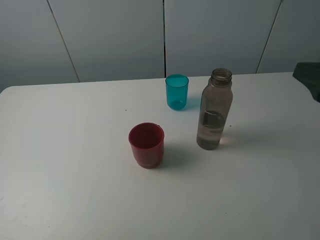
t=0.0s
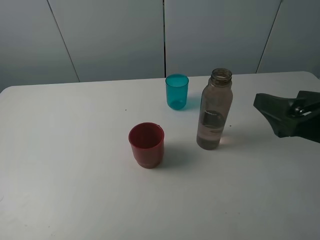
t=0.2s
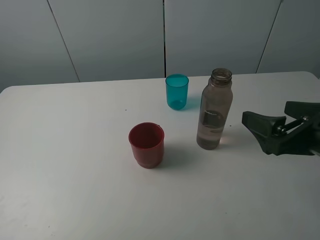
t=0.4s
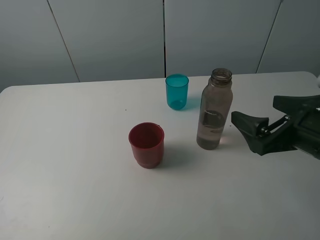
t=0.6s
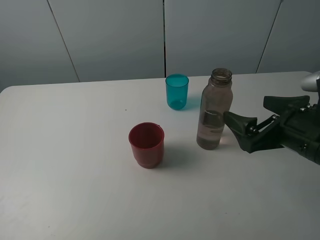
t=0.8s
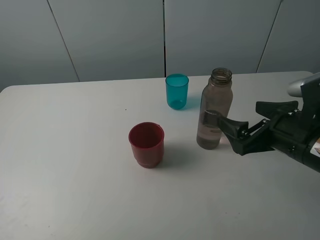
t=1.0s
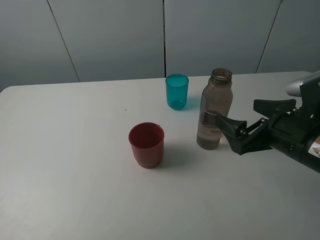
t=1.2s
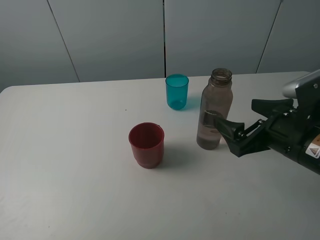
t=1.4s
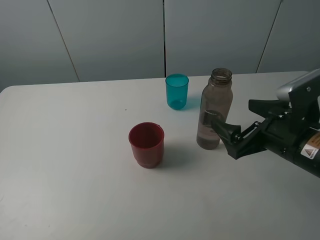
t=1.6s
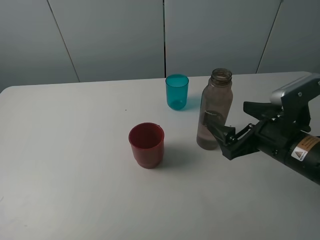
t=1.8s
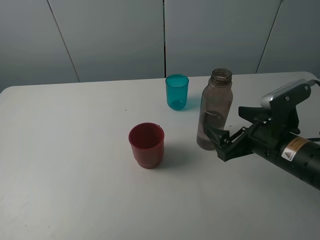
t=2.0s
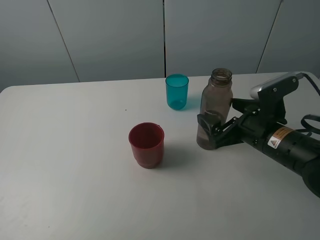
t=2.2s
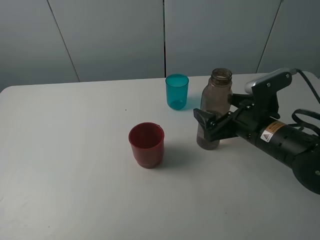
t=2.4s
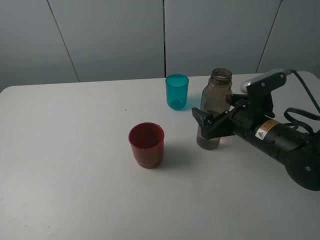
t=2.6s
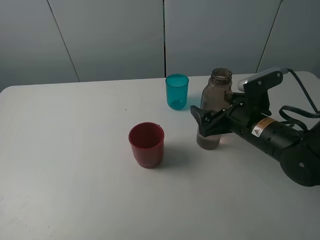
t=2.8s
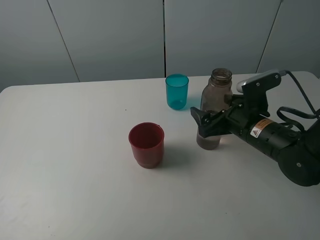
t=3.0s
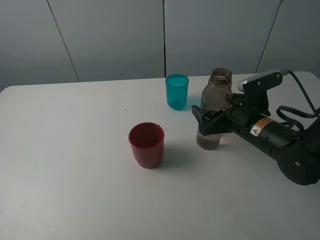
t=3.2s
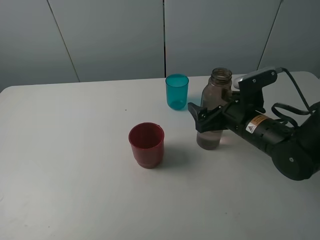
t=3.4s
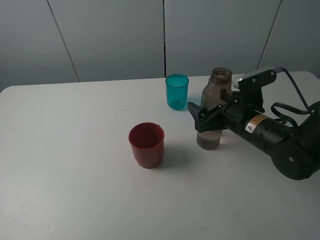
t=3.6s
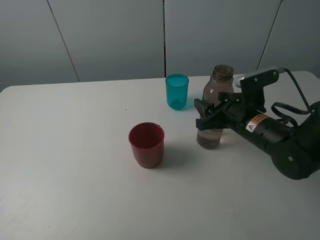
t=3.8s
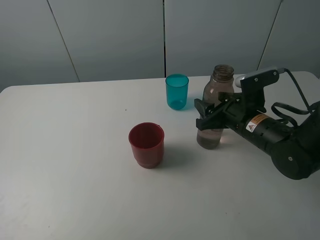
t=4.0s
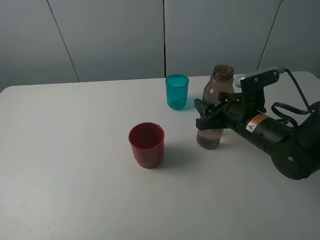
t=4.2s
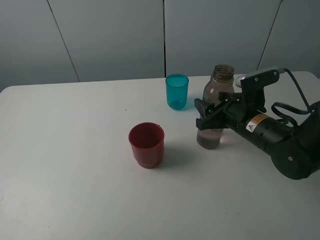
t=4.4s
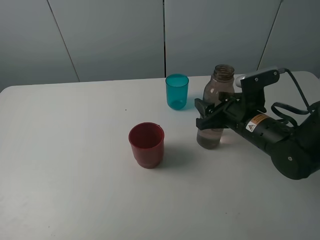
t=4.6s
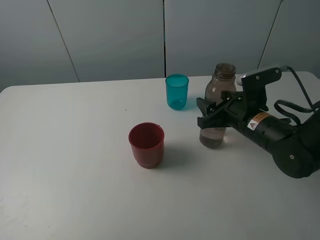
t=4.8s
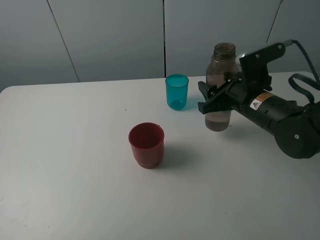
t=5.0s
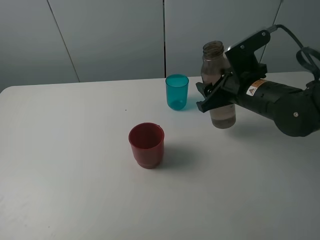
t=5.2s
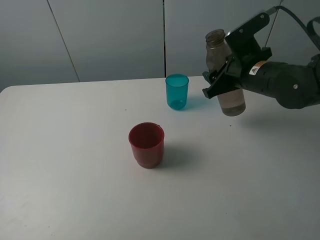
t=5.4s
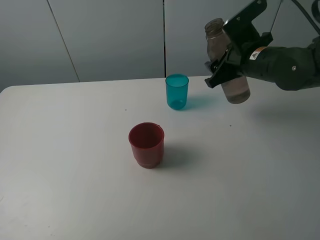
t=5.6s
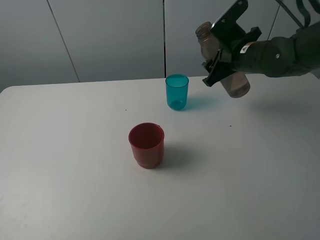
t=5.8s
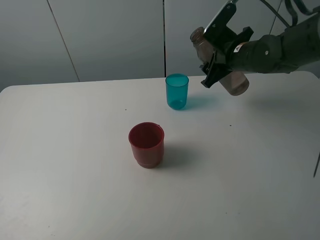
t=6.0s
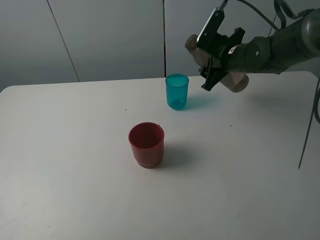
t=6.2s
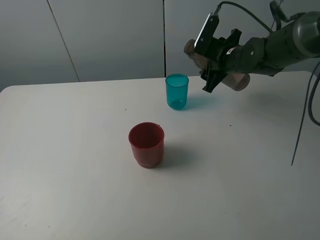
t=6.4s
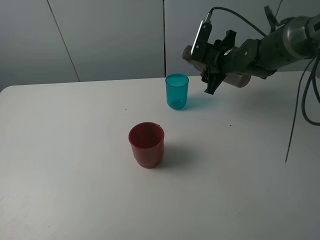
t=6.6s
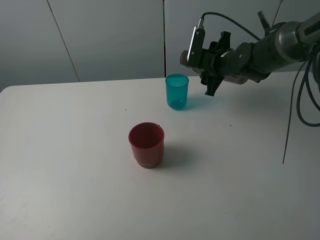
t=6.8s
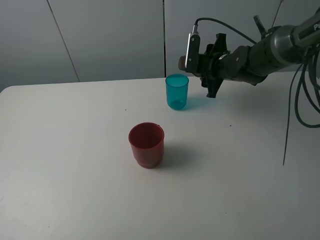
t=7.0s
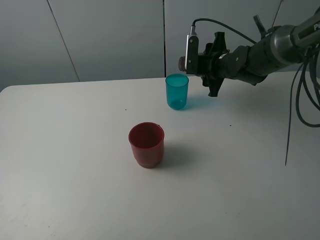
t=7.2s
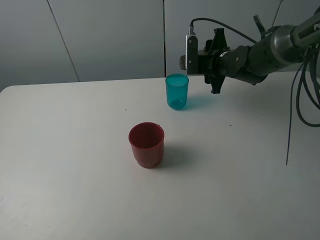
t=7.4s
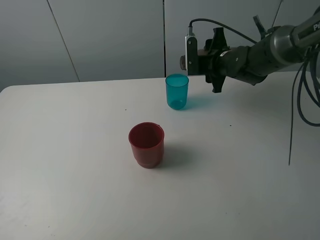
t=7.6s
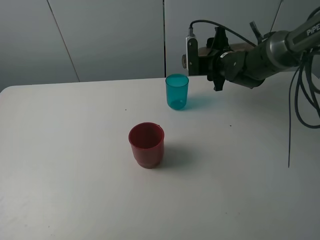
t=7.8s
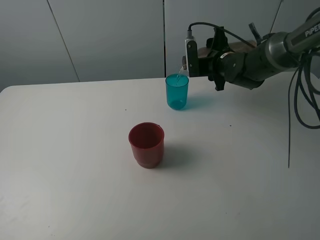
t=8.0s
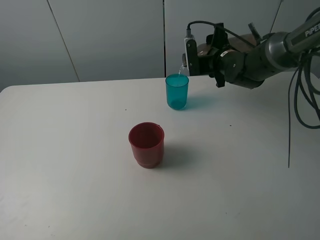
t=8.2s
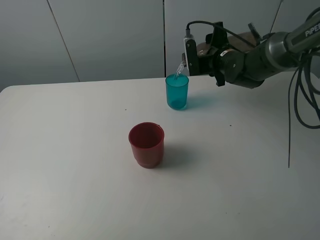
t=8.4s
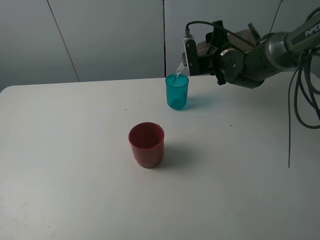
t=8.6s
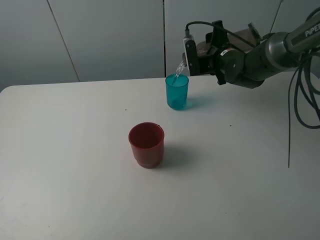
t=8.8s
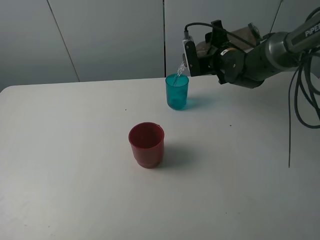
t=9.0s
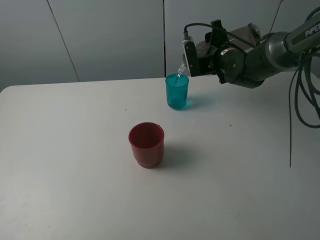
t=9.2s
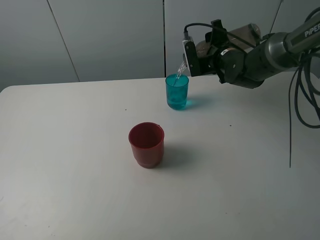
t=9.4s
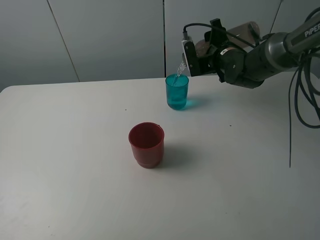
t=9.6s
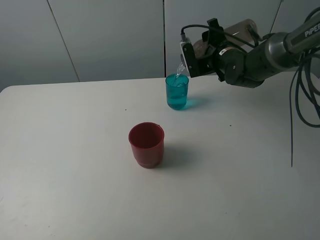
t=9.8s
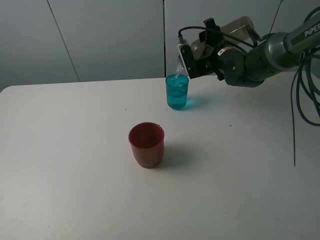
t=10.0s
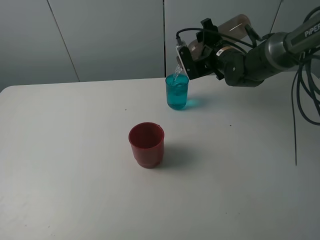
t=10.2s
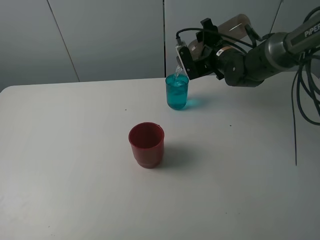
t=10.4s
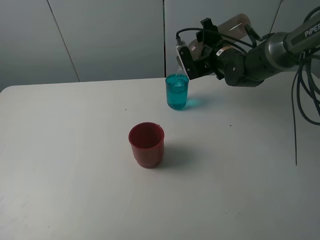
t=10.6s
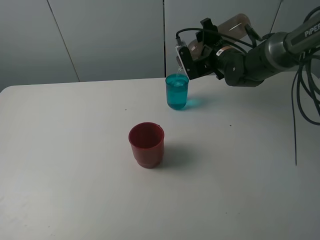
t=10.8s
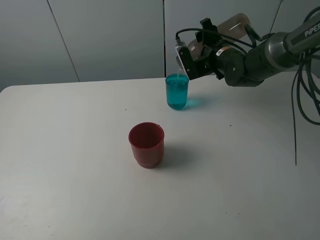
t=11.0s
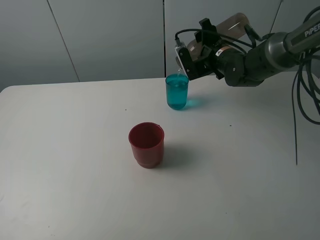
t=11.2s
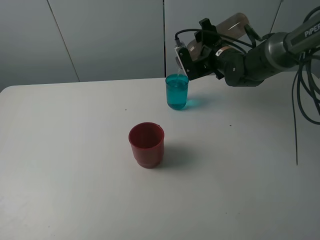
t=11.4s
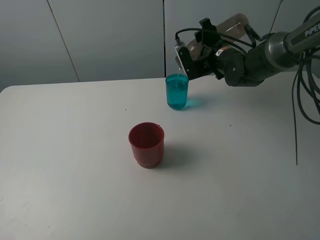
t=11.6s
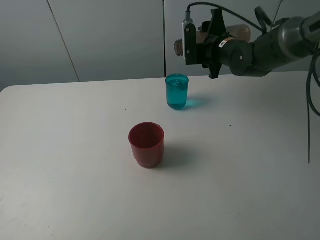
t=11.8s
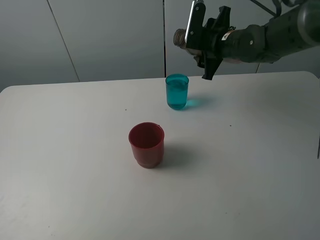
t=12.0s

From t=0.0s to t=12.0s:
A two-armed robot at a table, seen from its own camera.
Task of the whole recording: pick up the bottle and pour water into the cup, then pick up the cup containing water and pour it into another cup.
Step, from t=0.0s to t=3.8s: Grasp the brown bottle with the right gripper.
Step, from t=4.0s to t=11.8s: Pour water from brown bottle to blue cup with the right gripper.
From t=0.0s to t=1.6s: The right gripper goes approximately 10 cm downward and to the left, and opens up.
From t=1.6s to t=3.0s: The right gripper goes roughly 5 cm forward.
From t=3.0s to t=4.4s: The right gripper closes its fingers.
From t=4.4s to t=6.0s: The right gripper is displaced forward and upward by roughly 15 cm.
From t=6.0s to t=7.6s: The right gripper changes place by roughly 5 cm.
From t=7.6s to t=9.0s: There are only small adjustments of the grippers.
From t=9.0s to t=10.4s: The grippers stay close to where they were, moving slightly.
From t=10.4s to t=12.0s: The right gripper changes place by about 5 cm.

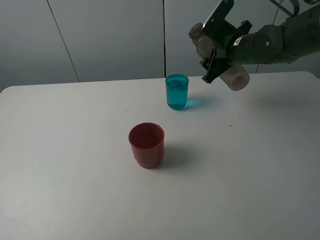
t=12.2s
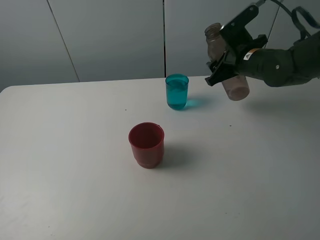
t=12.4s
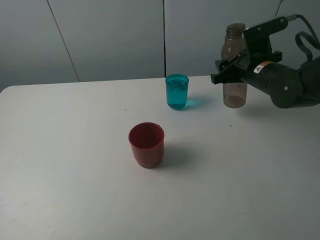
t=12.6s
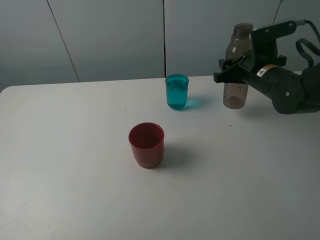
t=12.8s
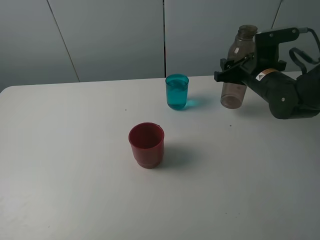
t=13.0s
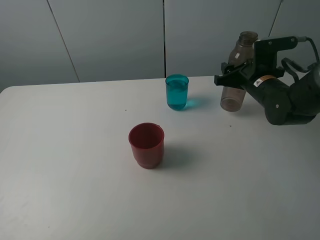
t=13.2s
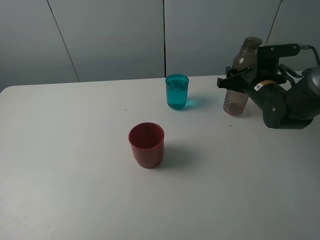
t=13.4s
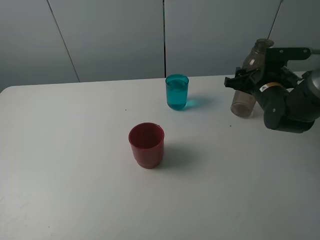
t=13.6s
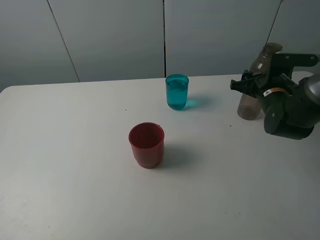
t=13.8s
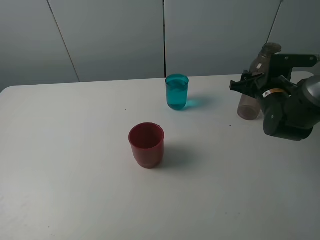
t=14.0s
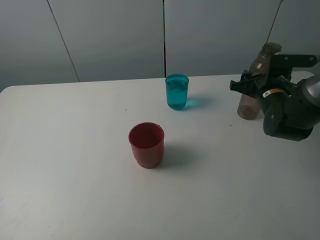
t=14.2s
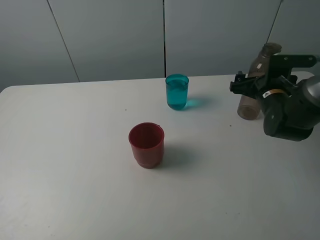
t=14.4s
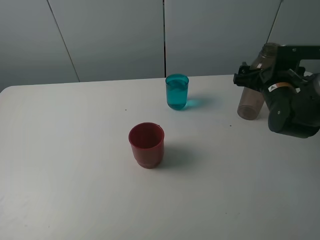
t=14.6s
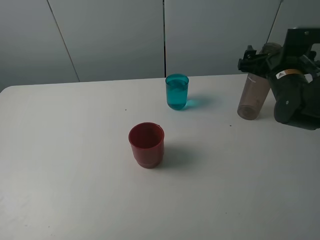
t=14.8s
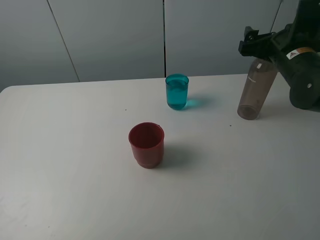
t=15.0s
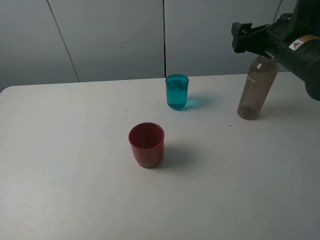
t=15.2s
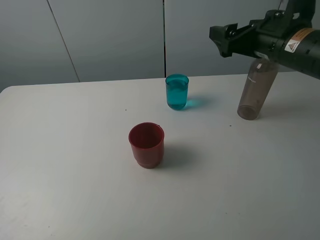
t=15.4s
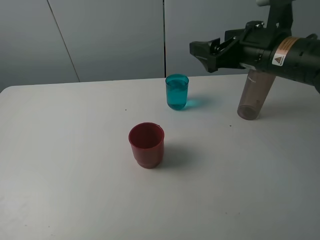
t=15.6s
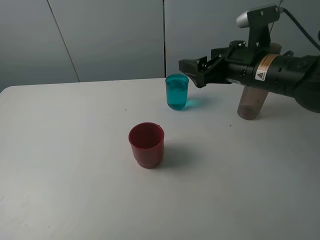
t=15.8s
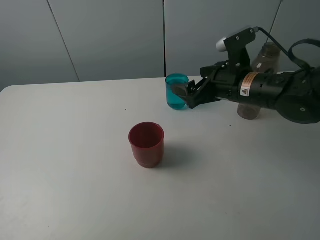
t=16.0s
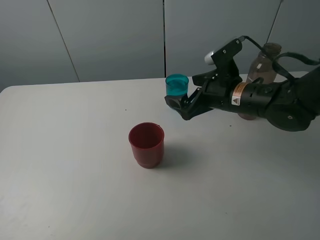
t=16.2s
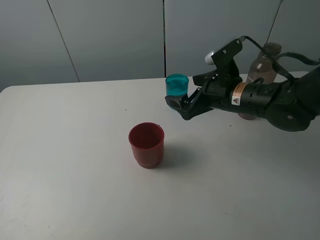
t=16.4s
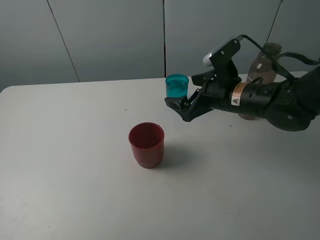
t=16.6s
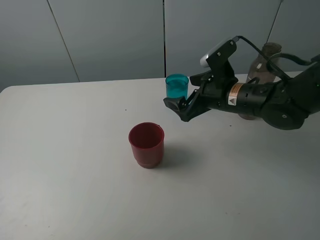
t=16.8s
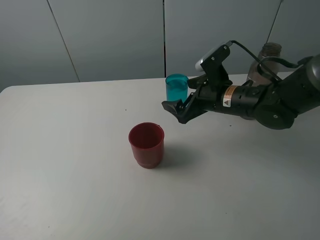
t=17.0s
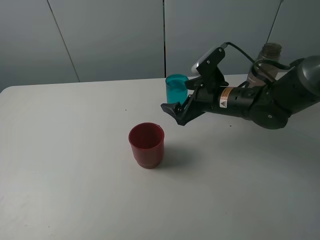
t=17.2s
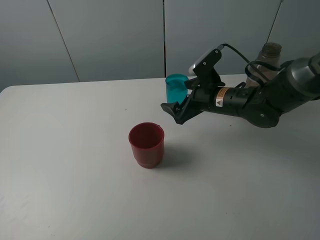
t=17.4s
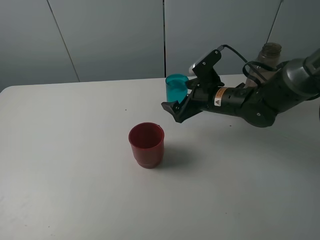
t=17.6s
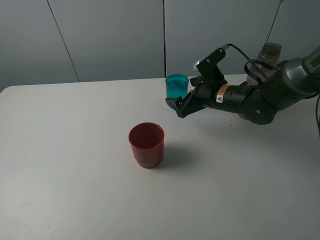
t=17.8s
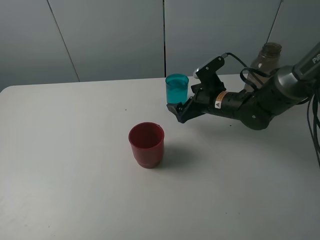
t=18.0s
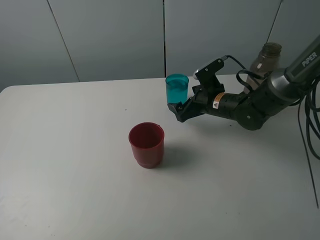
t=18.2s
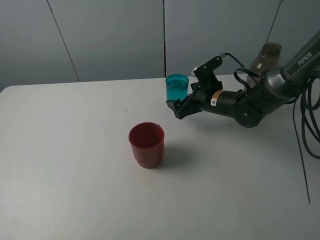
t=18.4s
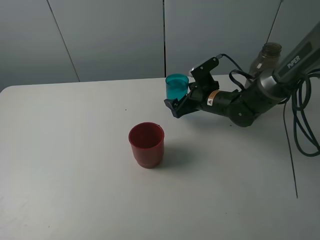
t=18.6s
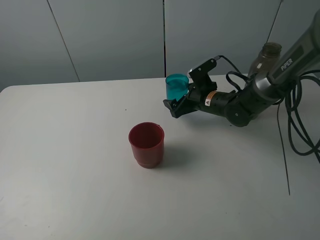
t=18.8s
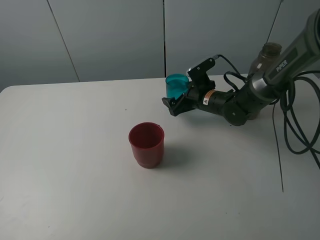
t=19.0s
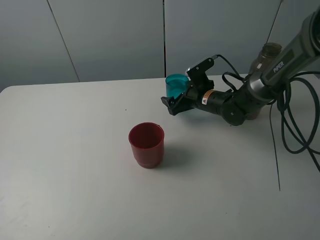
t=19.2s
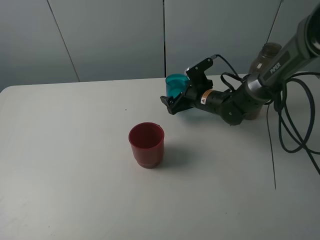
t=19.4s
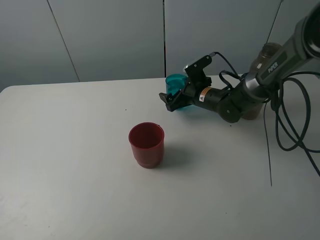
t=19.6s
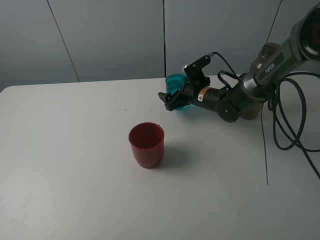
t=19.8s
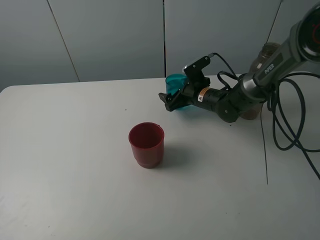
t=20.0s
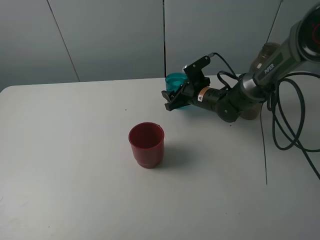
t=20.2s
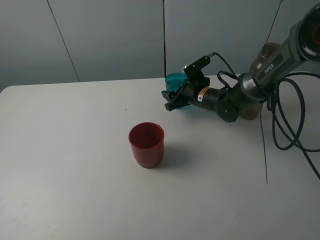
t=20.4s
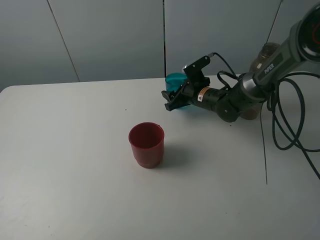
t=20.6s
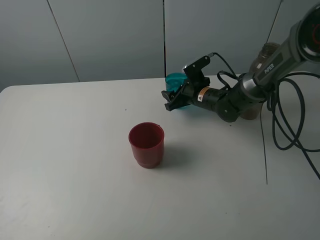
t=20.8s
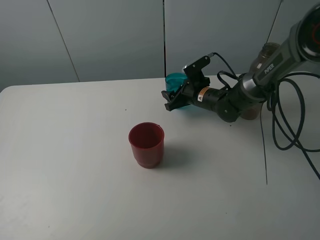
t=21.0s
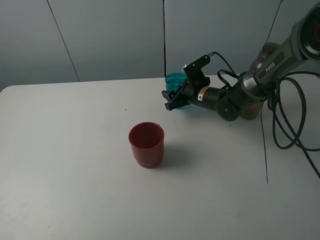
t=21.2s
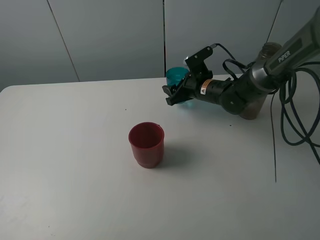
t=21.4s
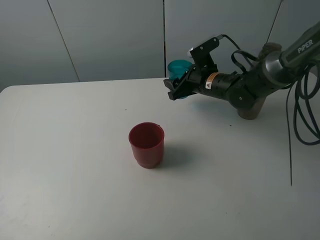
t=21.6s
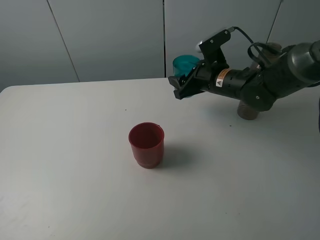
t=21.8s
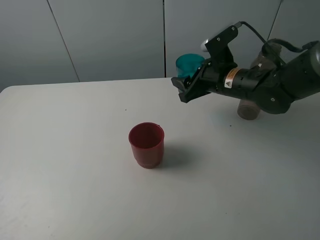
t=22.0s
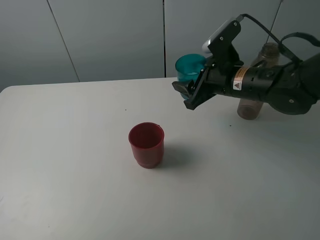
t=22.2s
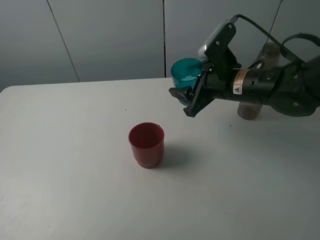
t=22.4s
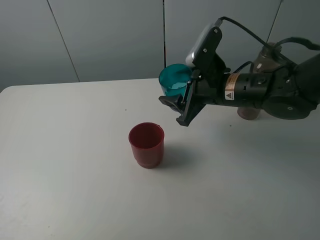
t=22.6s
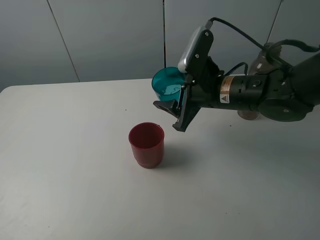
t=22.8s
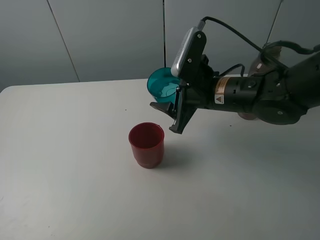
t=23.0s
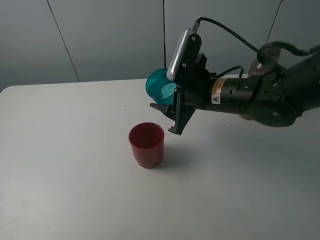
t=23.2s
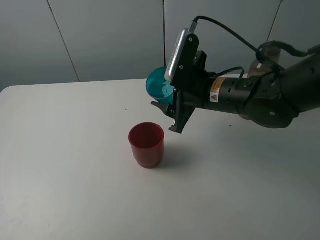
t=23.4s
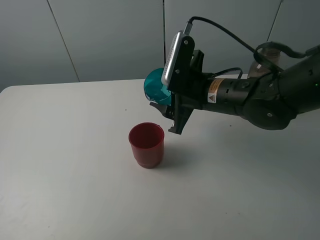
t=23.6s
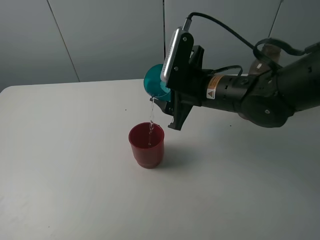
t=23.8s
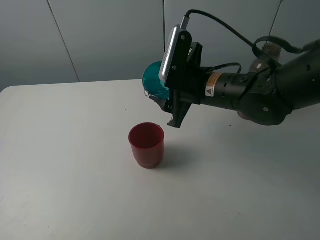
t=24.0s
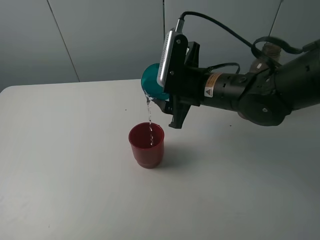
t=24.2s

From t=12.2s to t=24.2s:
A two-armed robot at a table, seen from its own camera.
Task of the whole recording: pick up the bottle and pour water into the cup, then pick up the cup containing water and pour it into another cup.
Step, from t=12.2s to t=14.4s: Place the brown bottle with the right gripper.
Step, from t=14.6s to t=20.2s: Grasp the blue cup with the right gripper.
From t=12.2s to t=13.8s: The right gripper shifts approximately 10 cm downward and to the right.
From t=13.8s to t=15.2s: The right gripper travels upward by roughly 15 cm, and opens its fingers.
From t=15.2s to t=16.6s: The right gripper moves downward and to the left, some 10 cm.
From t=16.6s to t=18.2s: The right gripper moves downward and forward, roughly 10 cm.
From t=18.2s to t=19.8s: The right gripper shifts about 5 cm forward.
From t=19.8s to t=21.2s: The right gripper closes its fingers.
From t=21.2s to t=22.6s: The right gripper is displaced backward and upward by about 15 cm.
